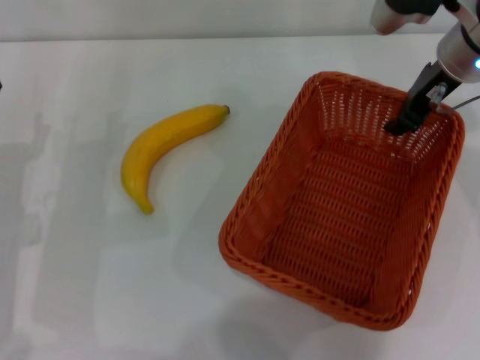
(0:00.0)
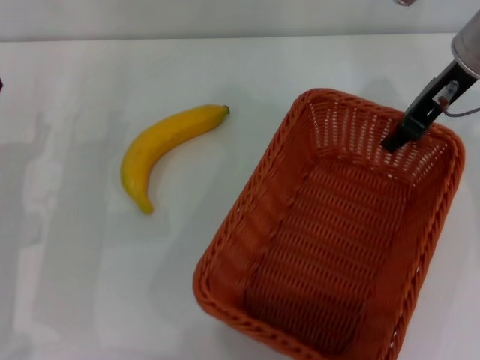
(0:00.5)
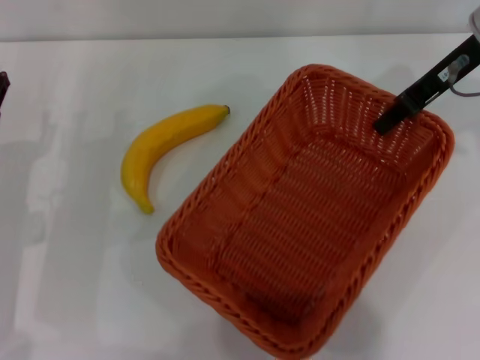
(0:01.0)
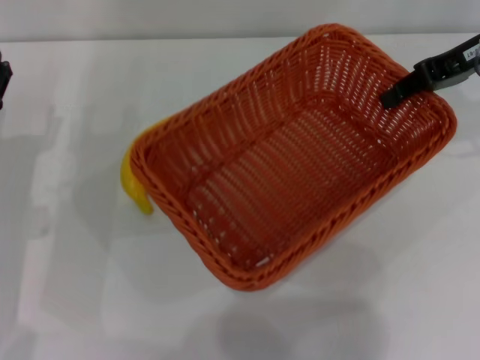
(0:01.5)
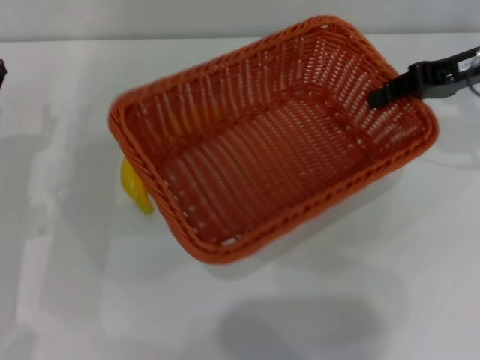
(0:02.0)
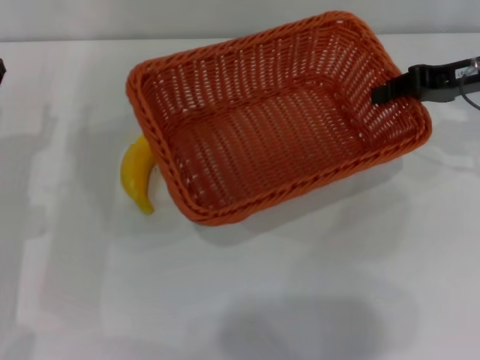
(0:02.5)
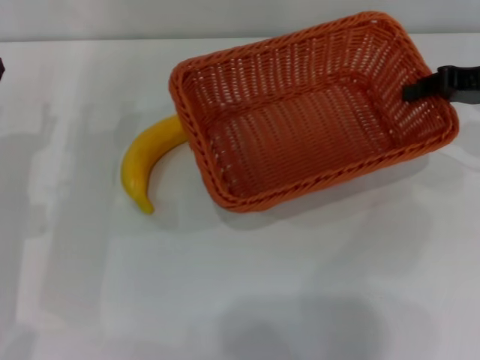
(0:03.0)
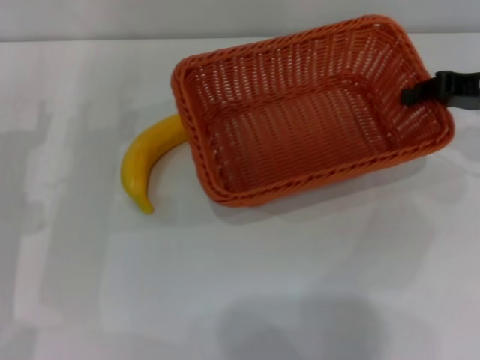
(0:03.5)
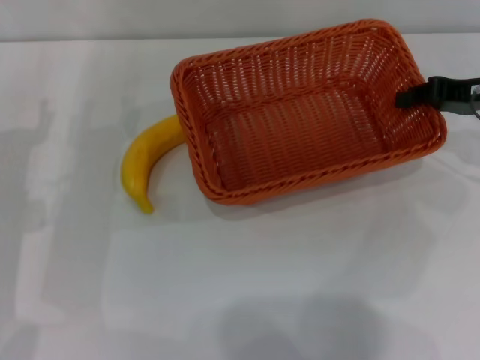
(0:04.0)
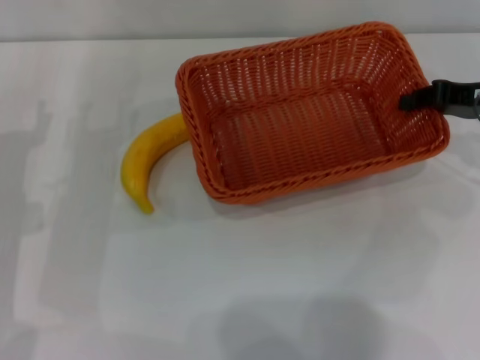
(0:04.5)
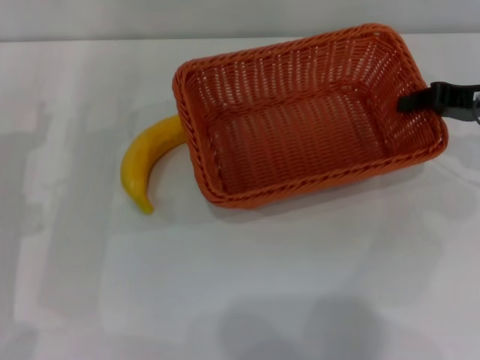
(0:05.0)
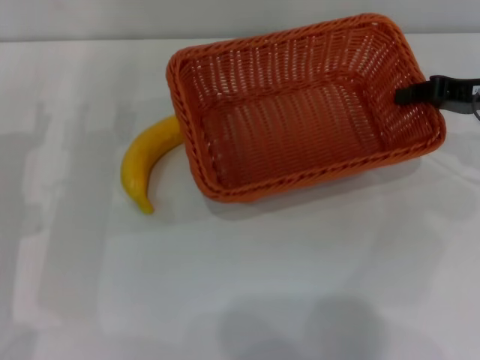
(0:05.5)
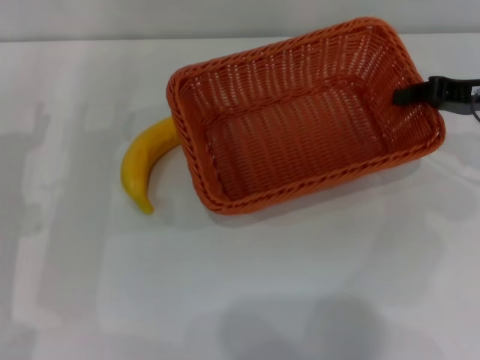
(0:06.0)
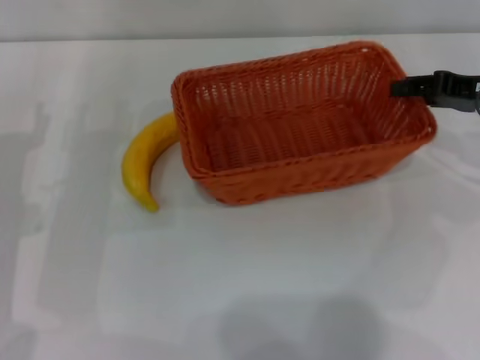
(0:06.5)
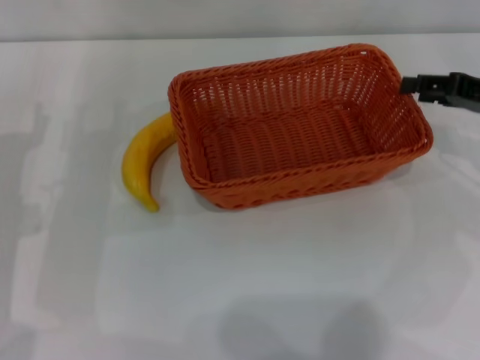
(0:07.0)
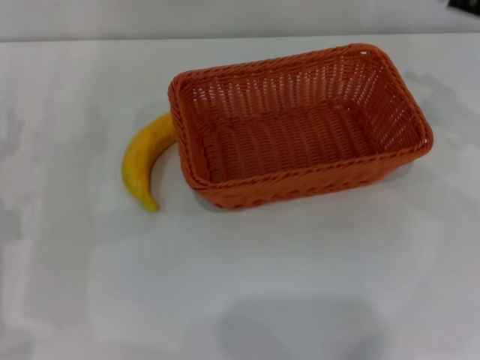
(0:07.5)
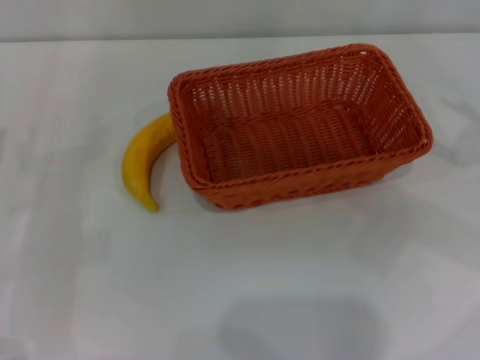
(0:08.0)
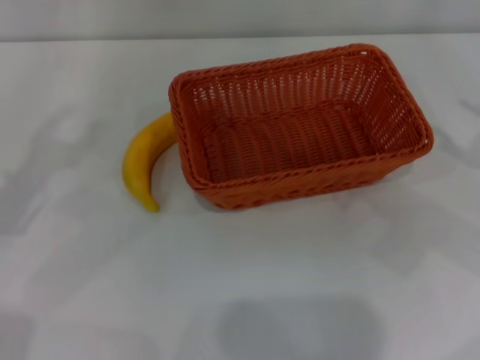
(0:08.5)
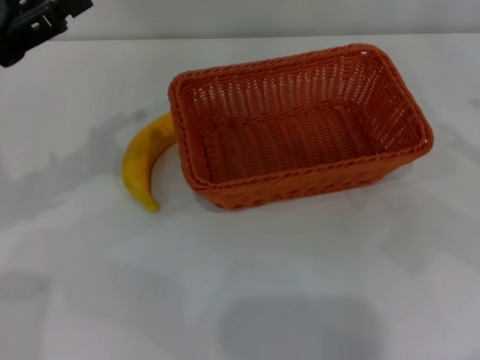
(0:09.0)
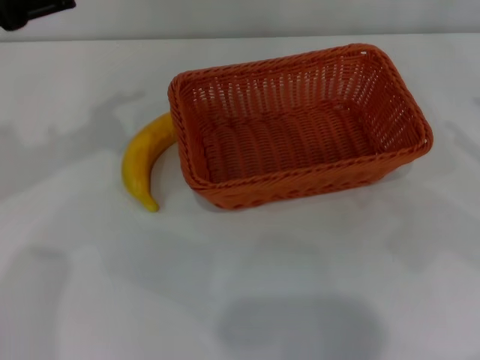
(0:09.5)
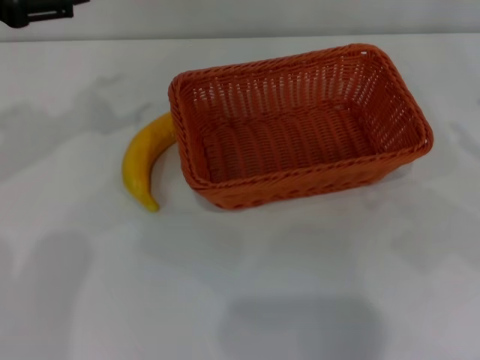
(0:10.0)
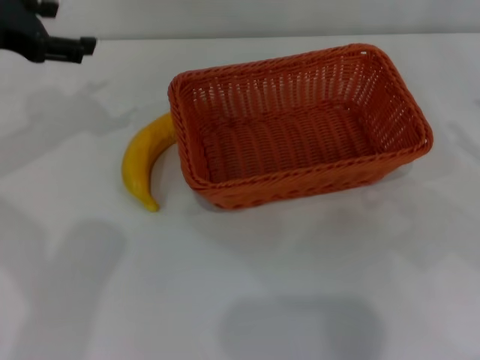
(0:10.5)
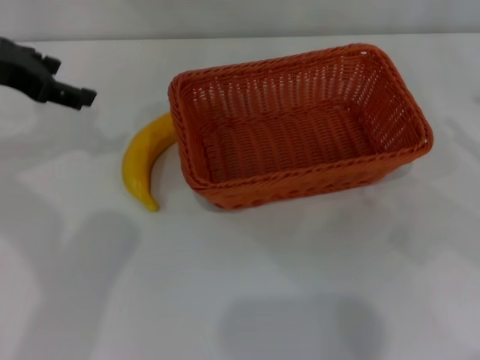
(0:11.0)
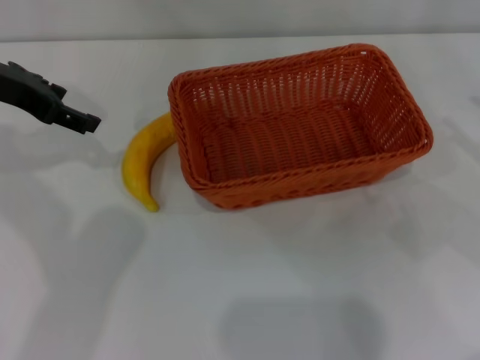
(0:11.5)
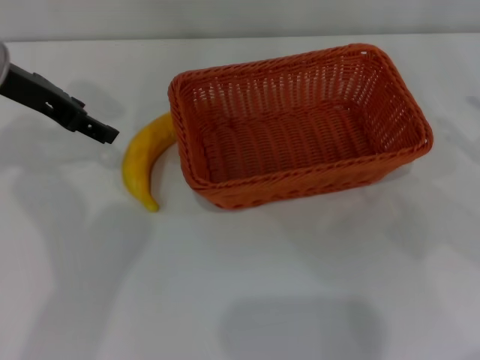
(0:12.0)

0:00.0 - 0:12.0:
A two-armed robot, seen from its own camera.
Step, 0:01.5 - 0:07.0: Place the light basket in the center of view with the right gripper.
0:00.0 - 0:02.0: The right gripper moves to the right, roughly 10 cm.
0:02.0 - 0:04.0: The right gripper is displaced downward by about 5 cm.
0:04.0 - 0:06.0: Both grippers stay put.
0:06.0 - 0:08.0: The right gripper moves backward, about 10 cm, and opens up.
0:08.0 - 0:10.0: The left gripper shifts approximately 20 cm upward and forward.
0:10.0 - 0:12.0: The left gripper shifts some 5 cm to the right.

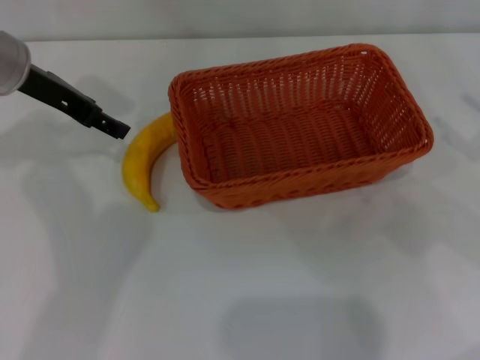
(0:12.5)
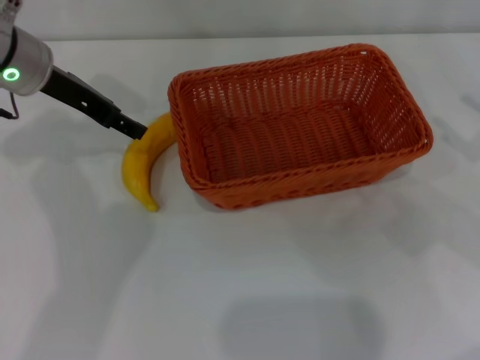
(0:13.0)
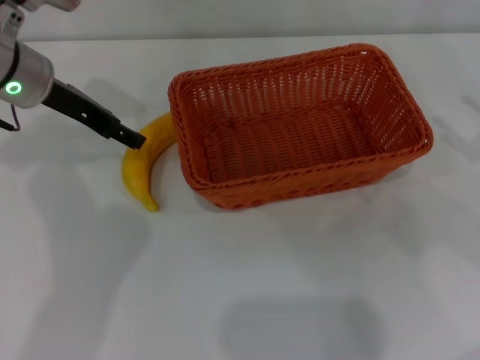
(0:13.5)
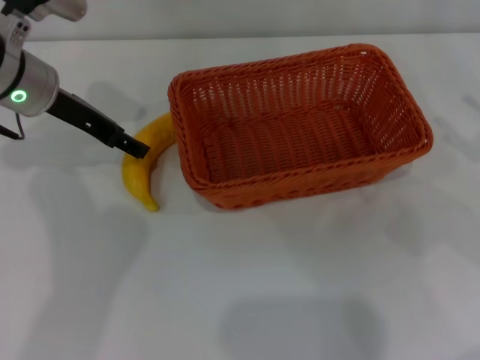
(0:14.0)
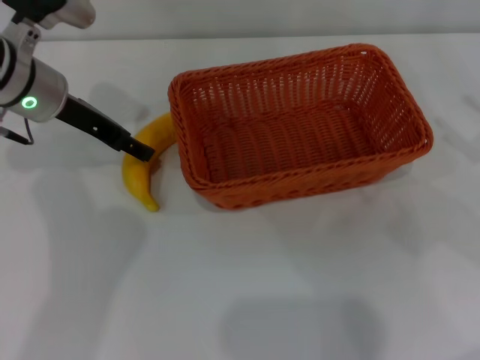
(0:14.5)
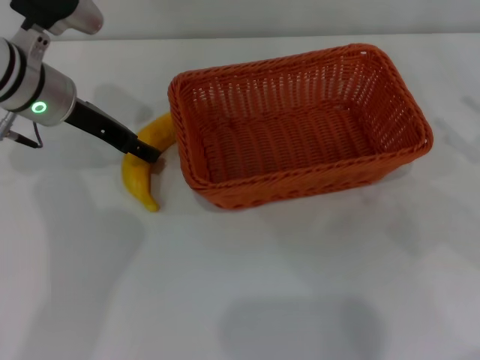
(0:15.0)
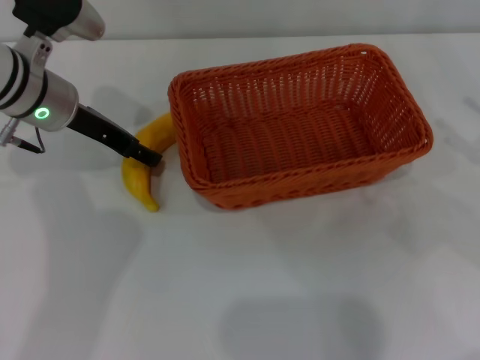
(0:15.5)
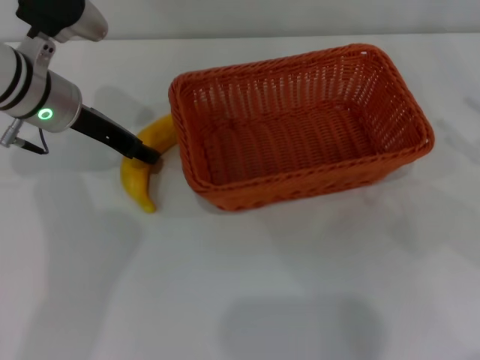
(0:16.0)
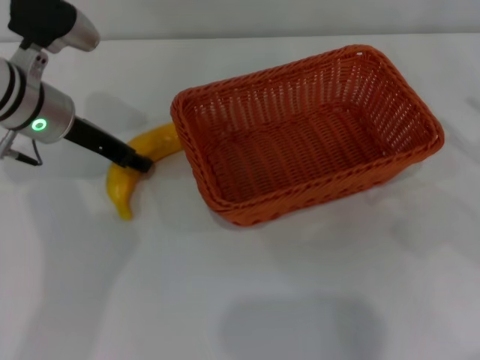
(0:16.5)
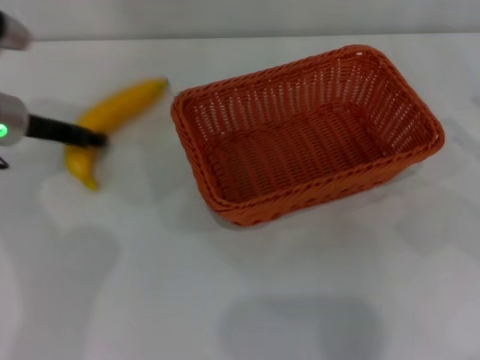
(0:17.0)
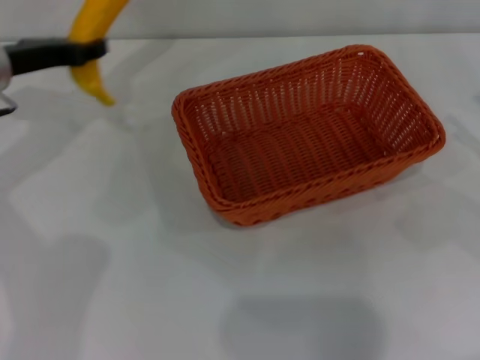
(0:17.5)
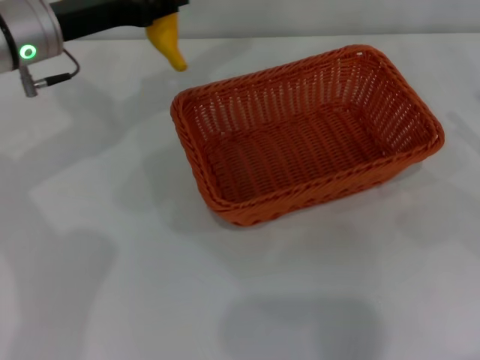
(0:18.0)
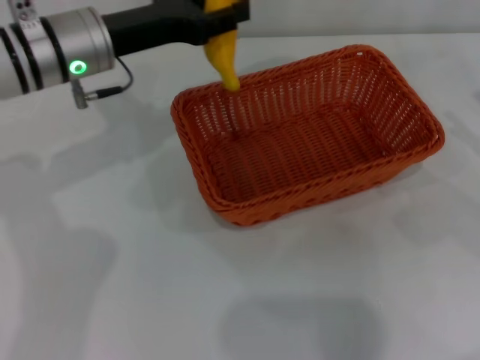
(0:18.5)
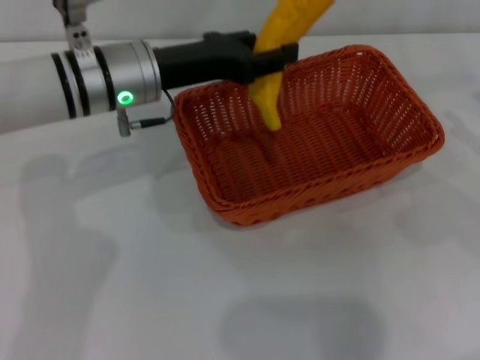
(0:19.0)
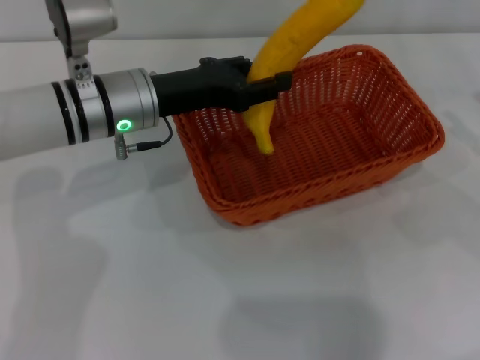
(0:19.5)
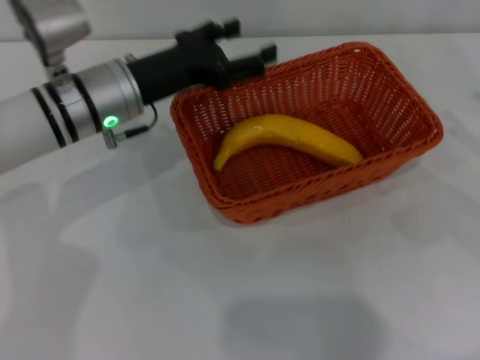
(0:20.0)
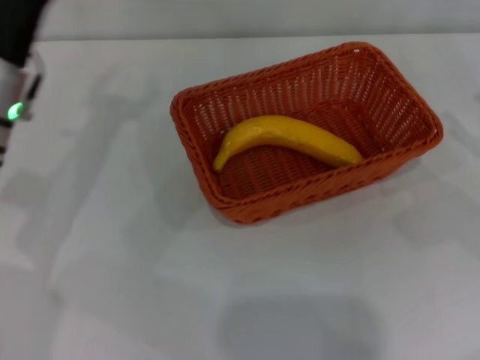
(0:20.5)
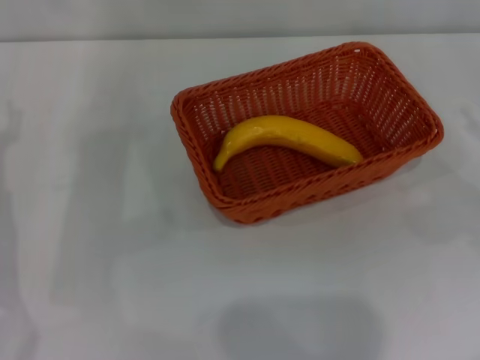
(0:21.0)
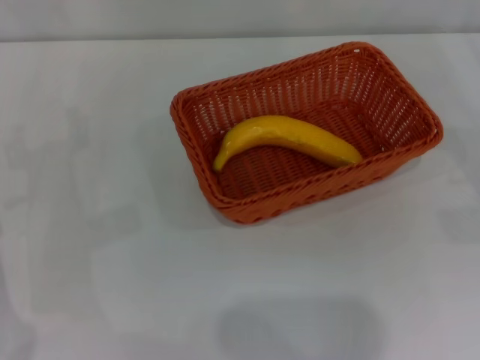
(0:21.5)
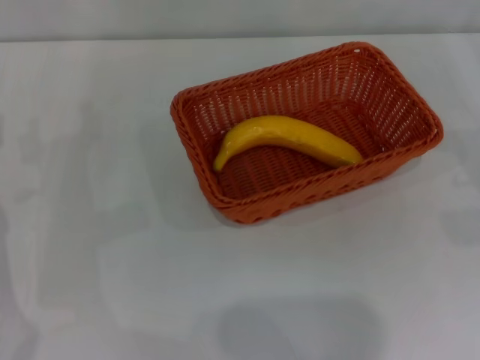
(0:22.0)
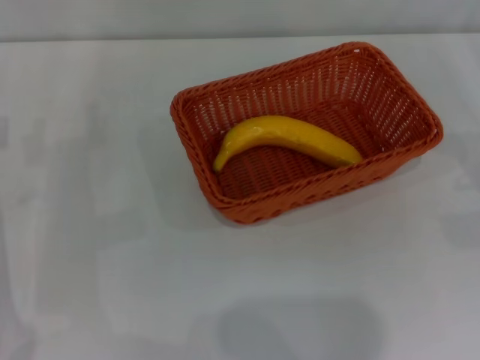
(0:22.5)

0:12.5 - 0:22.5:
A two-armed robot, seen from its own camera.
Step, 0:12.5 - 0:17.0: Pick up the banana with the left gripper.
Step, 0:17.5 - 0:19.5: Place the banana into the light basket with the left gripper.
0:12.5 - 0:14.5: The grippers move only a little.
0:14.5 - 0:16.5: The left gripper closes its fingers.
0:16.5 - 0:18.5: The left gripper shifts by roughly 5 cm.
0:18.5 - 0:20.5: The left gripper is displaced backward by about 5 cm, and opens.
0:20.5 - 0:22.5: The left gripper is displaced to the left and downward by some 10 cm.
